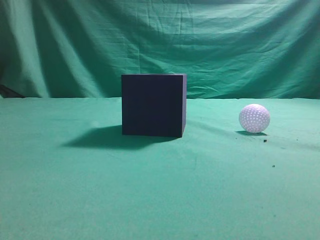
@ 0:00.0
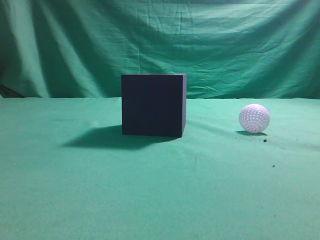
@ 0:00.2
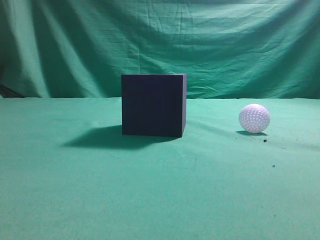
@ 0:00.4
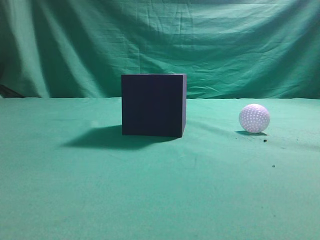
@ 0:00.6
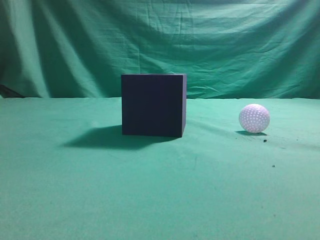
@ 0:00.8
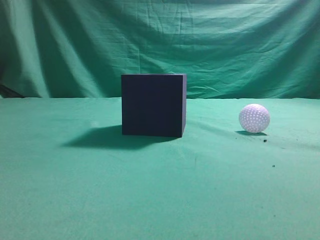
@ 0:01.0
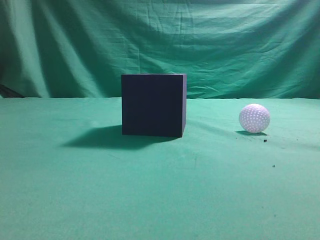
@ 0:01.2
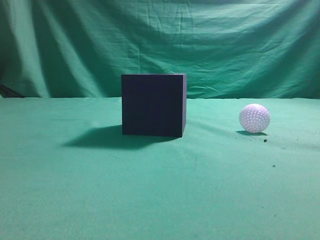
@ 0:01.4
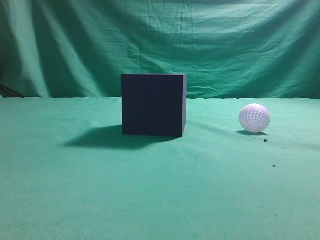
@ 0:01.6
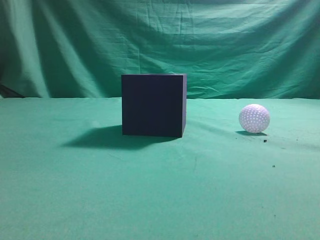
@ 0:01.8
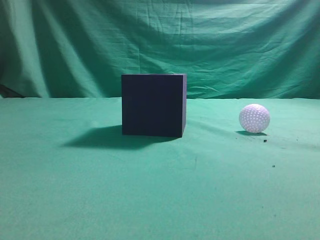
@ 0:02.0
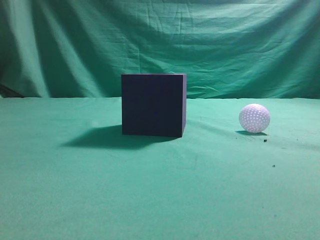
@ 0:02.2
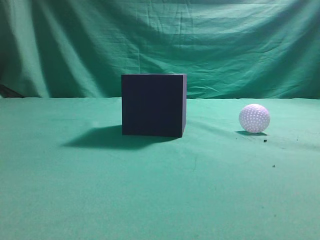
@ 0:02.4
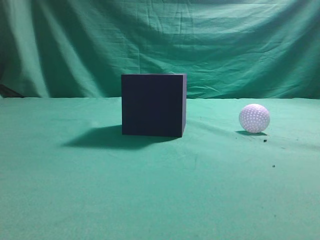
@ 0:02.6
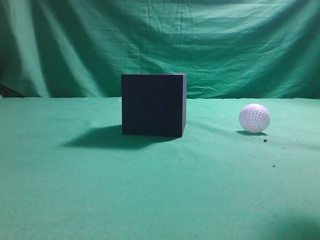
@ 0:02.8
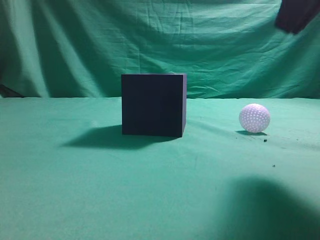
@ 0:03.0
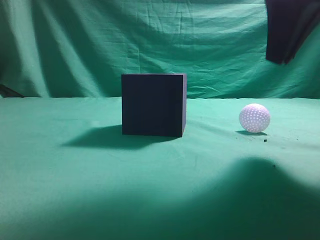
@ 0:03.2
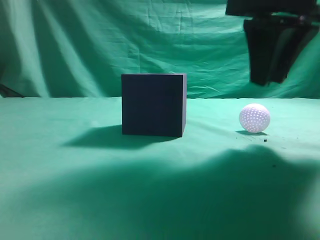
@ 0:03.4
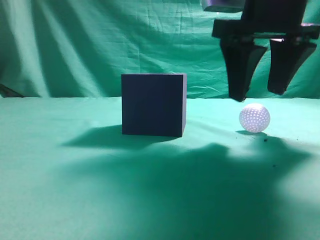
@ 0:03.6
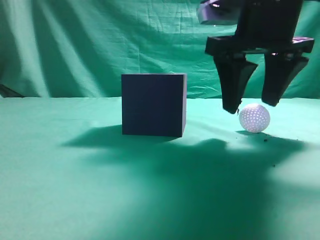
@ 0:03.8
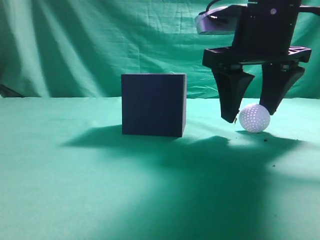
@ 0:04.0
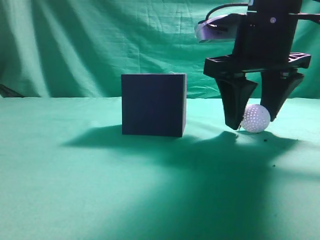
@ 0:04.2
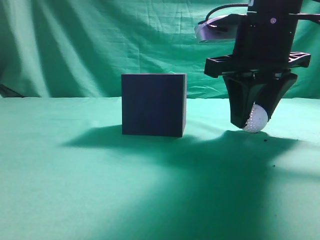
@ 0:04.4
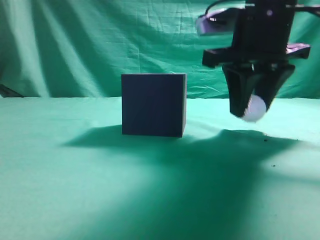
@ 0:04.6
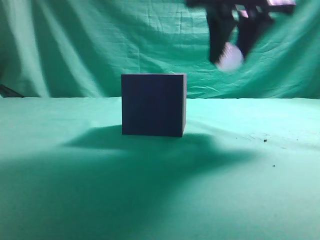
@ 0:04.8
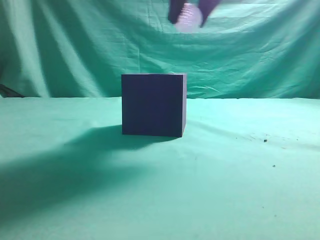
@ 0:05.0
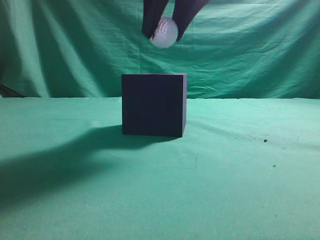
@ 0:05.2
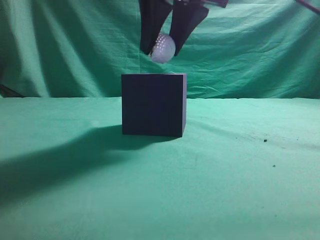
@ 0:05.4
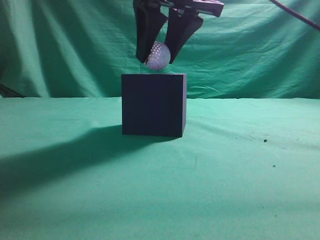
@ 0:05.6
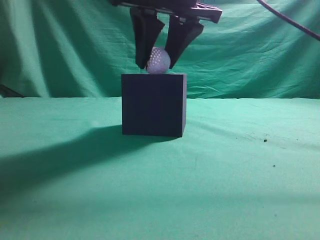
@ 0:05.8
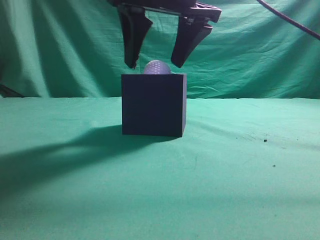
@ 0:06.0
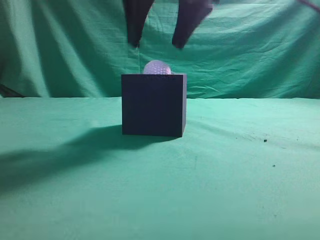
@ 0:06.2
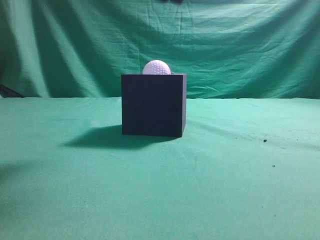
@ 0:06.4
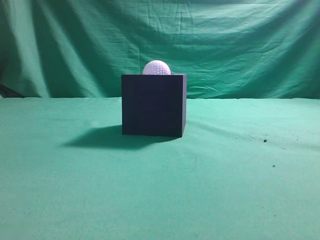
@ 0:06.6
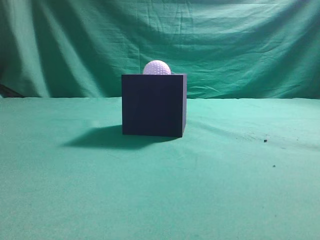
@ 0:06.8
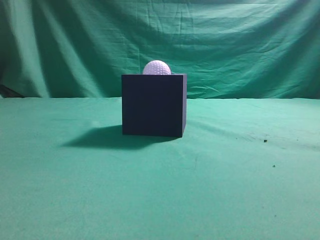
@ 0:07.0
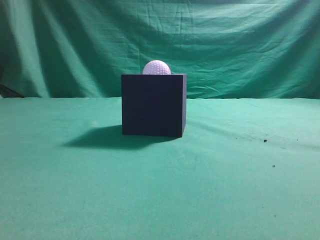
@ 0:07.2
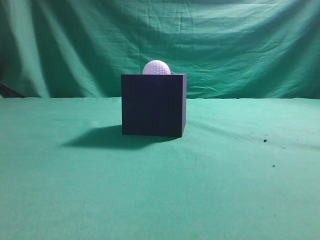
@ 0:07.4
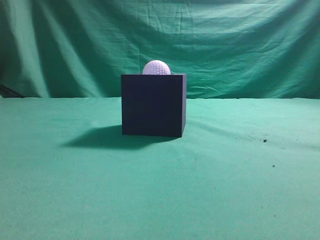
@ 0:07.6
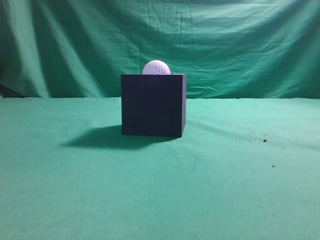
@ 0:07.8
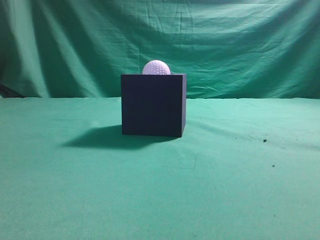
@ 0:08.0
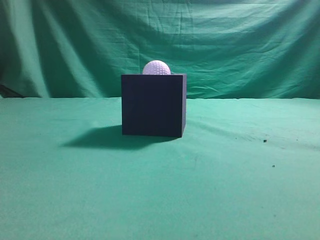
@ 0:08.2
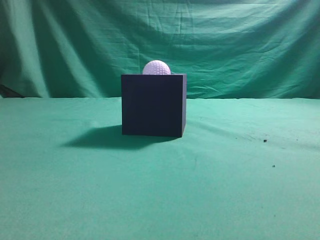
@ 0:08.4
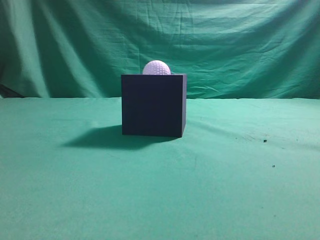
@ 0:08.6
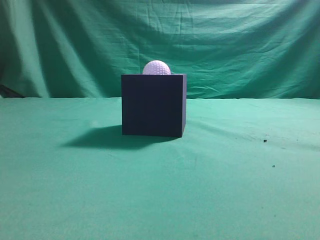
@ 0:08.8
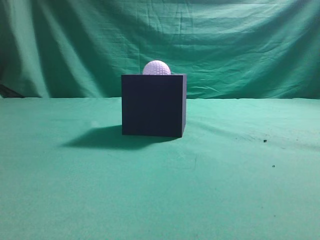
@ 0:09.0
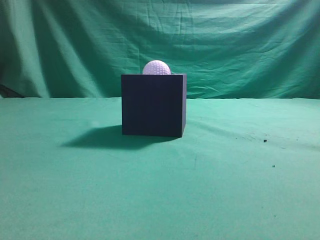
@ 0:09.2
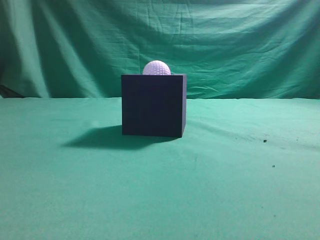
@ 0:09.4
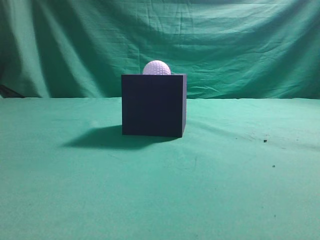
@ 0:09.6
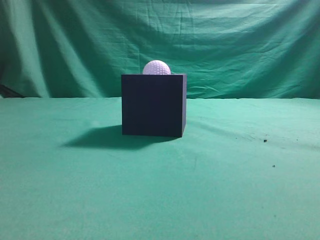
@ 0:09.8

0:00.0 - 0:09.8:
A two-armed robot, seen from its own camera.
Task of the whole recording: Pick up the ball and place it in the circular groove above the cube.
Step, 0:00.0 - 0:04.6: Grasp the sphere on the table.
Step, 0:04.8 - 0:06.2: Place the sphere into the sphere-shaped recess.
0:01.4 - 0:02.8: The right gripper goes some 15 cm forward, upward and to the left.
0:02.8 - 0:04.2: The right gripper moves forward, downward and to the left, some 20 cm, and opens up.
0:04.2 - 0:05.6: The right gripper goes about 10 cm to the left and upward, and closes its fingers.
0:05.6 - 0:07.0: The right gripper travels upward, backward and to the right by roughly 25 cm, and closes up.
